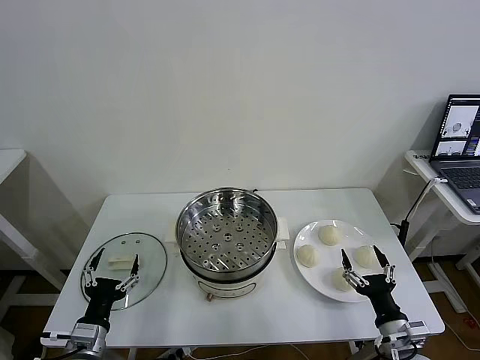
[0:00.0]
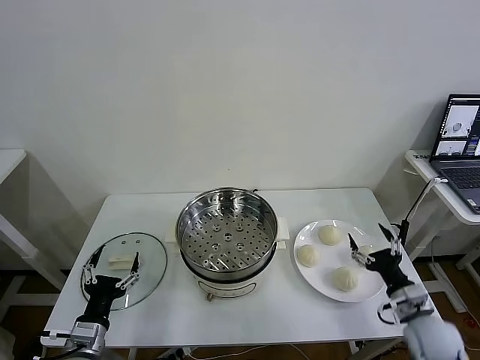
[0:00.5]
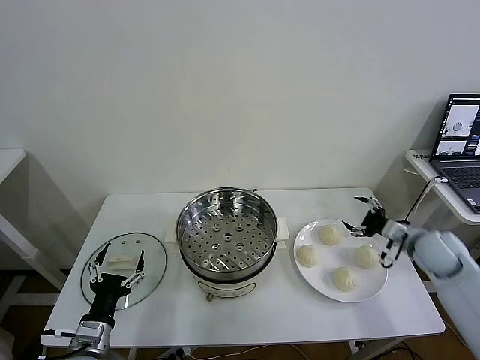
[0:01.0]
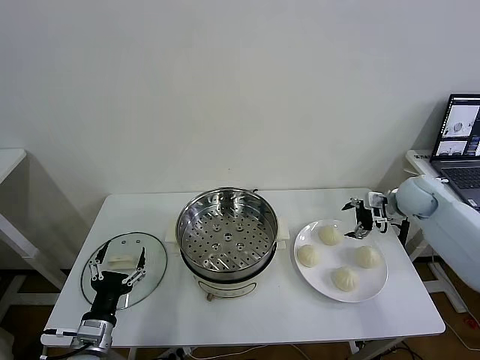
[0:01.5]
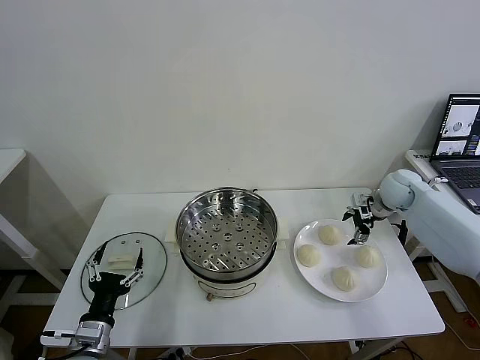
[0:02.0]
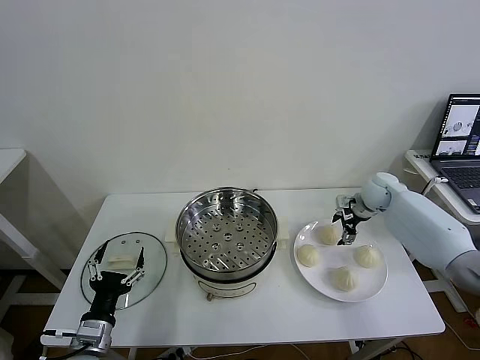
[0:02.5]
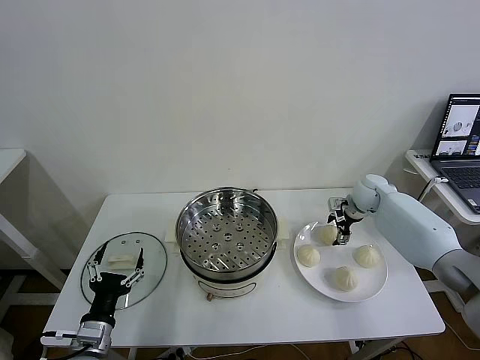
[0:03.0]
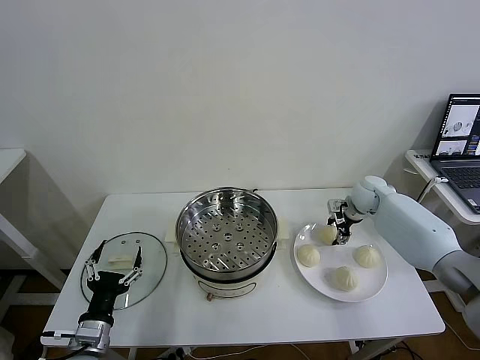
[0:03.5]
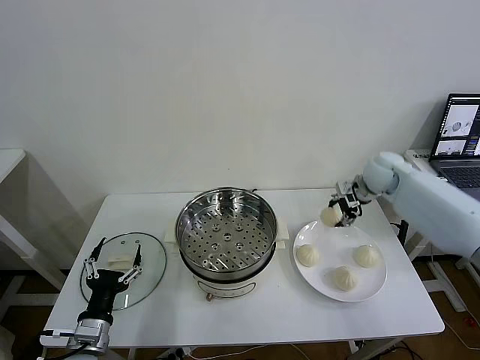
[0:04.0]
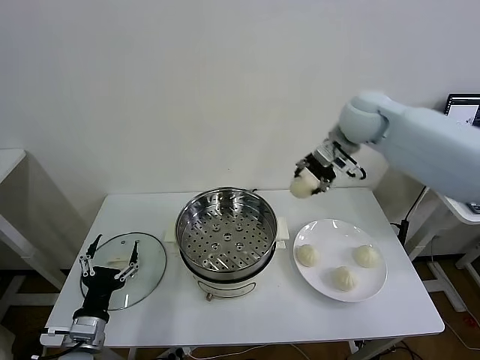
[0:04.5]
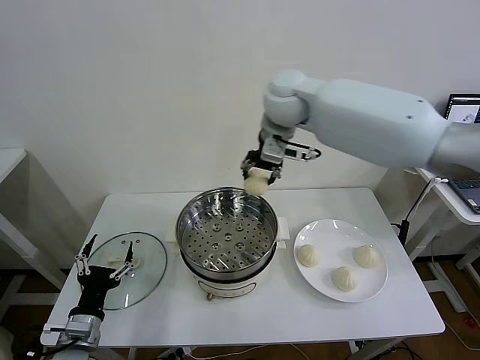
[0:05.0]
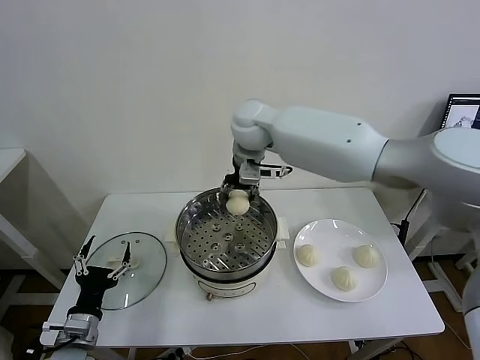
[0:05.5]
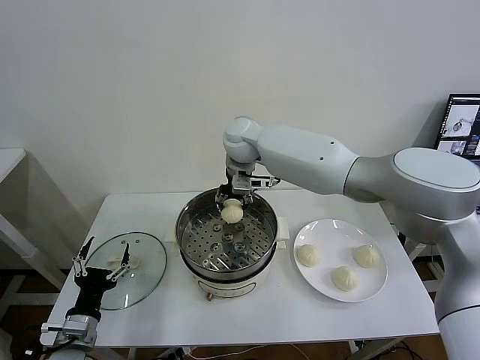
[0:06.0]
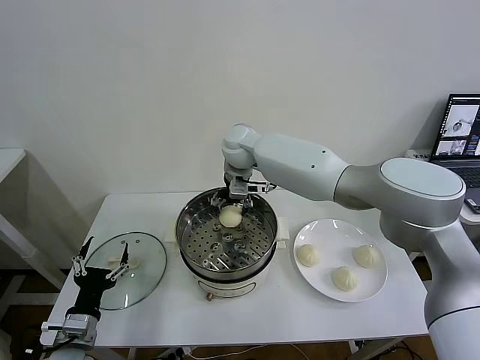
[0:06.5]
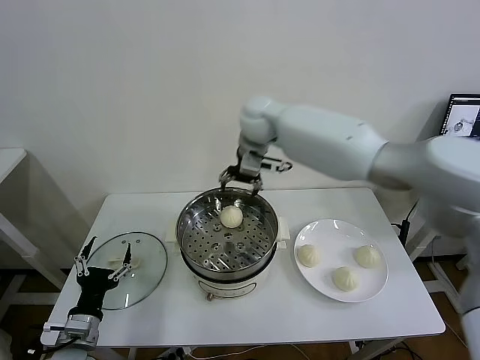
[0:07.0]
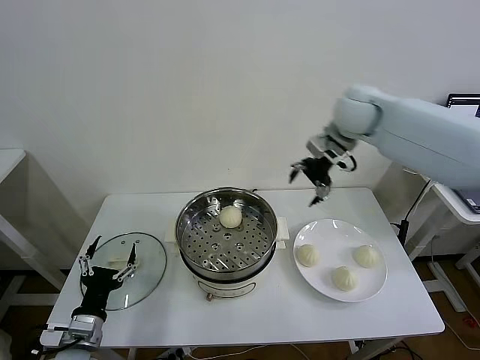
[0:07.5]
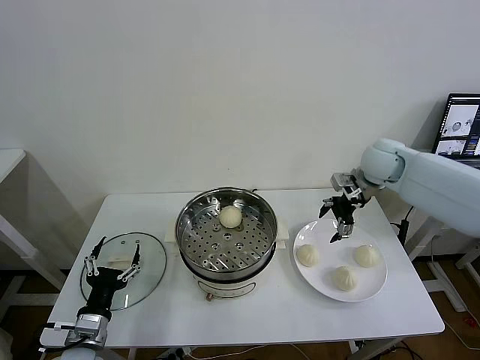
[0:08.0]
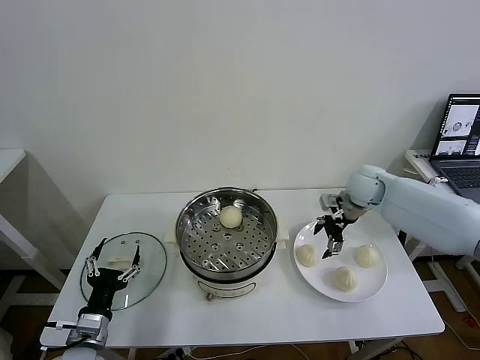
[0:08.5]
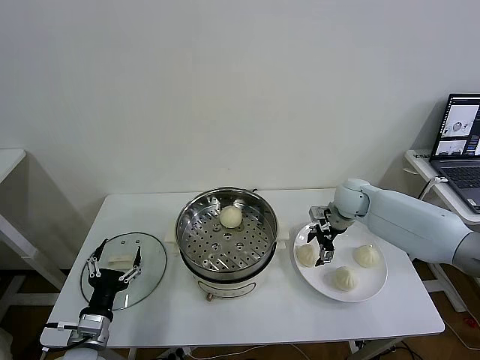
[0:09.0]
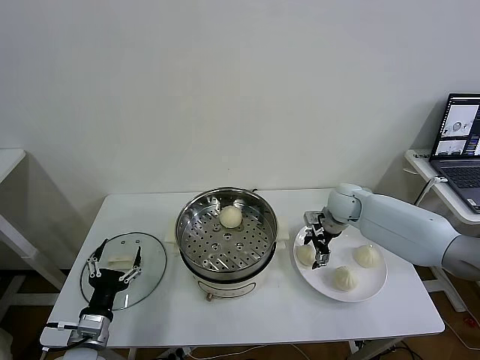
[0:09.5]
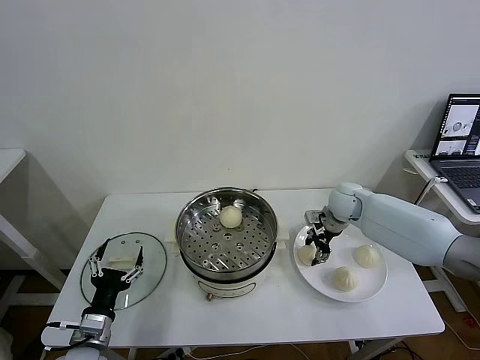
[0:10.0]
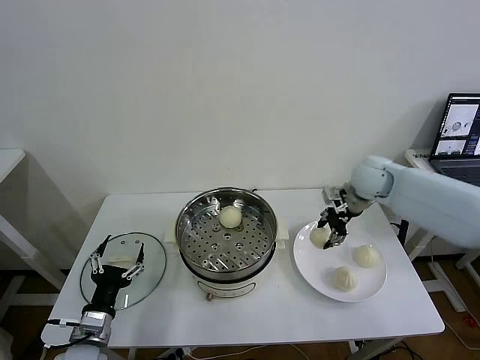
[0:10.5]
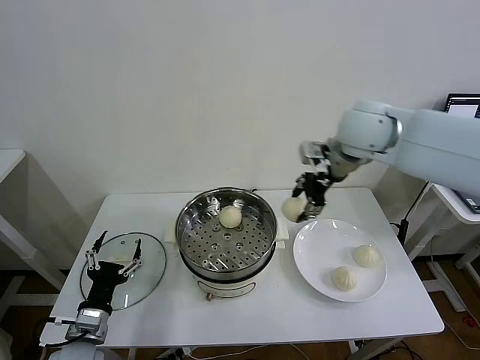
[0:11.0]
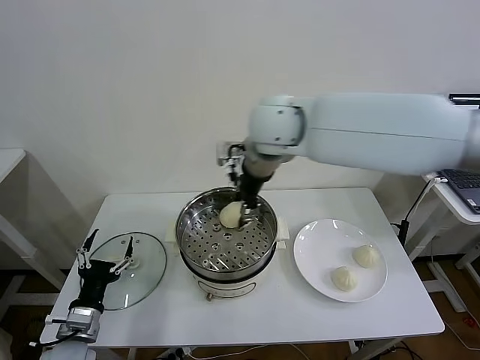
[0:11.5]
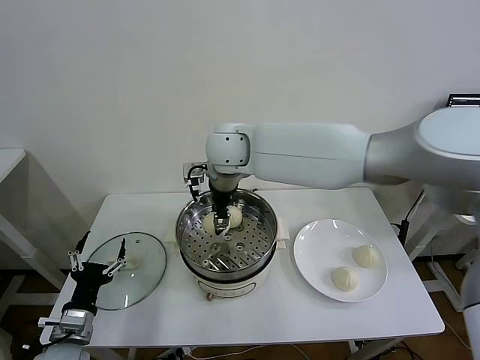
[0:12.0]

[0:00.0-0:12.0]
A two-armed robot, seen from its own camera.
Task of the whole recording: take steamed baozi put them in steamer then cover it.
Step, 0.0 to 3.0 s: Grasp the baozi in the plate with right gripper.
Step, 3.5 to 6.5 s: Place the baozi on the steamer with right gripper.
Step, 7.0 to 9.5 s: Grasp the baozi in the plate with right gripper.
2.0 to 4.0 s: The right gripper heads upward and to the left, covering approximately 10 cm, and closes its fingers.
4.0 to 6.0 s: The right gripper moves to the left, about 35 cm.
6.0 to 8.0 s: The right gripper moves to the right, approximately 30 cm, and opens.
8.0 to 10.0 s: The right gripper shifts roughly 10 cm downward, and closes up.
10.0 to 12.0 s: The right gripper travels to the left and upward by some 35 cm.

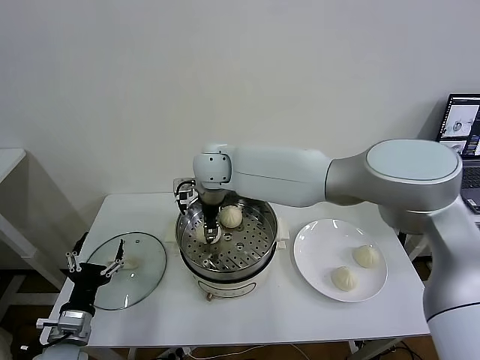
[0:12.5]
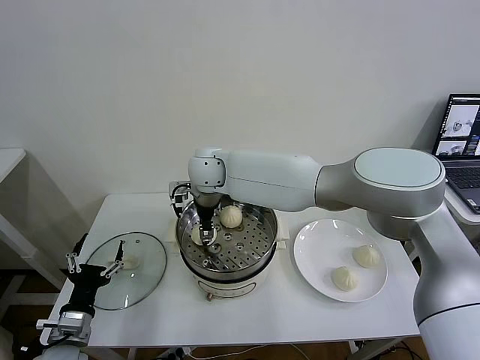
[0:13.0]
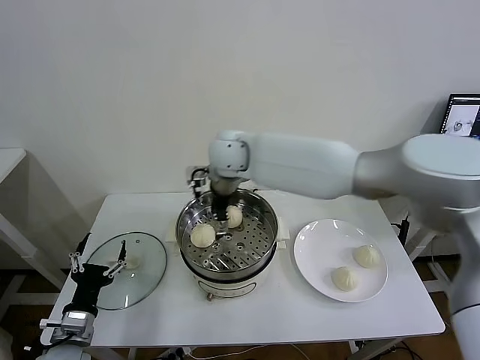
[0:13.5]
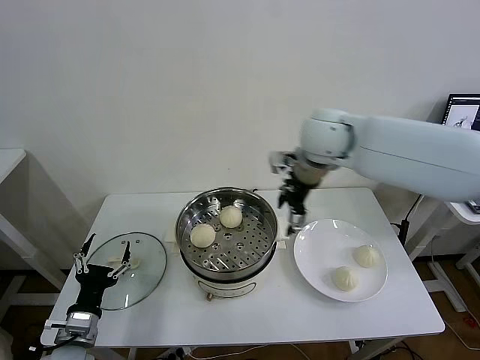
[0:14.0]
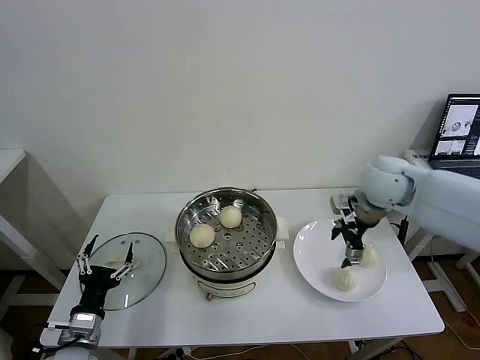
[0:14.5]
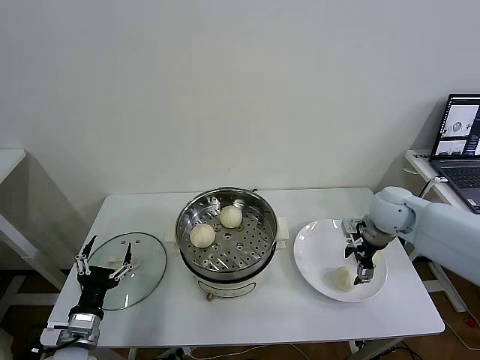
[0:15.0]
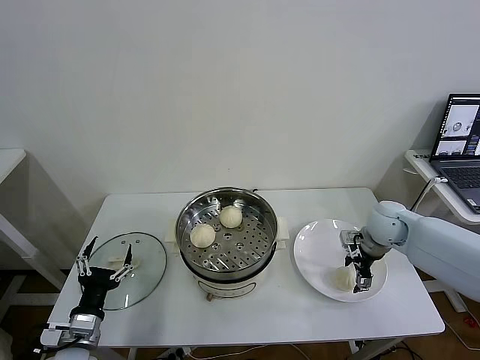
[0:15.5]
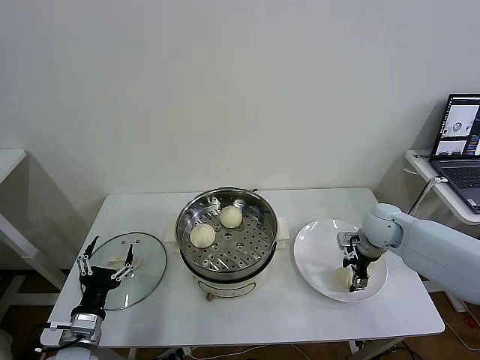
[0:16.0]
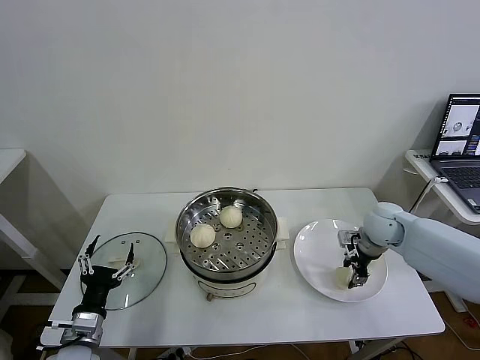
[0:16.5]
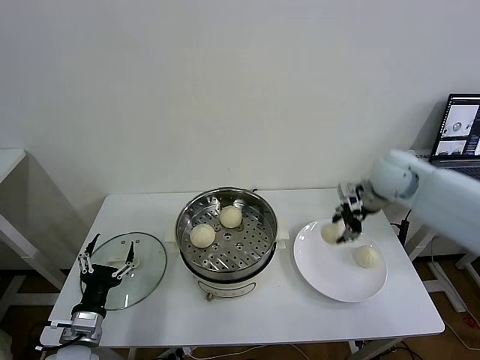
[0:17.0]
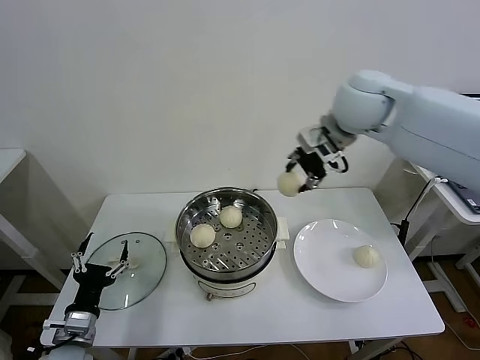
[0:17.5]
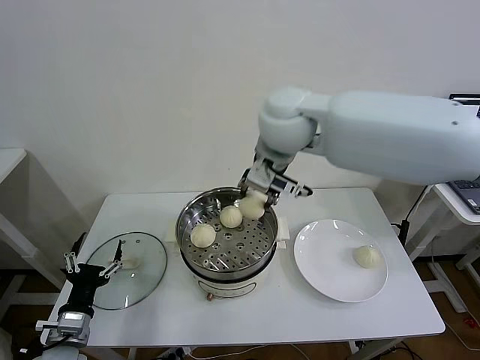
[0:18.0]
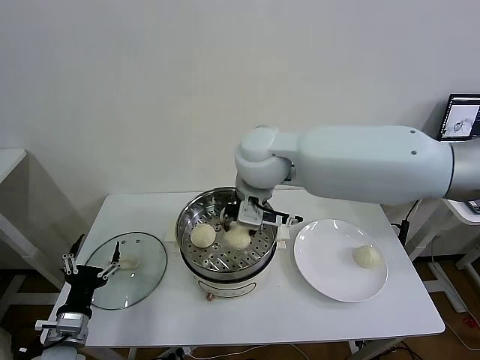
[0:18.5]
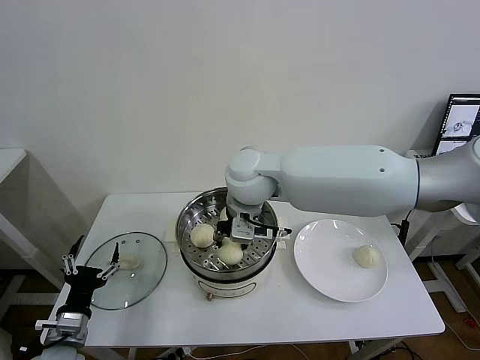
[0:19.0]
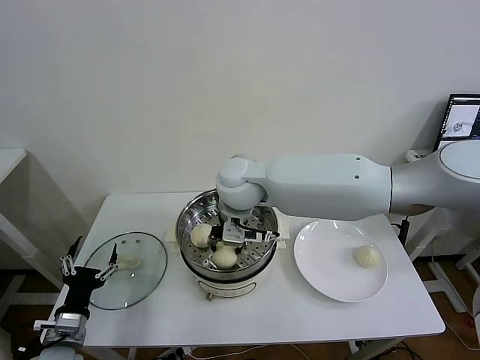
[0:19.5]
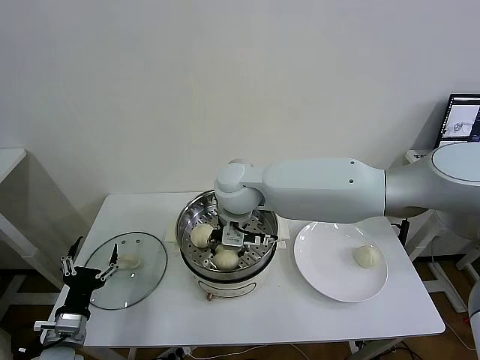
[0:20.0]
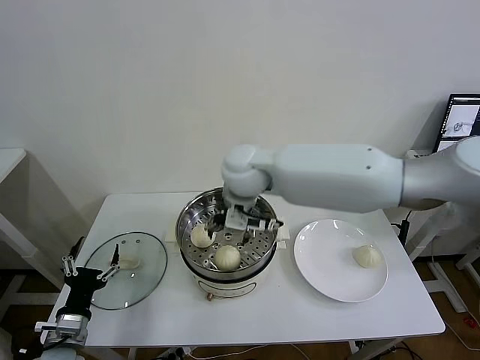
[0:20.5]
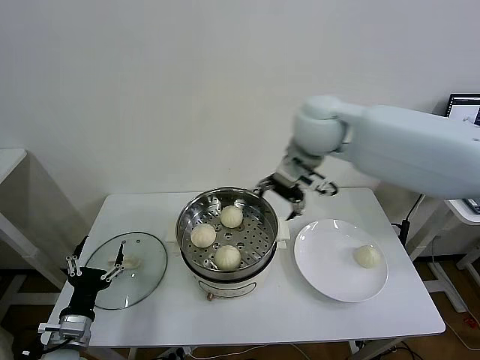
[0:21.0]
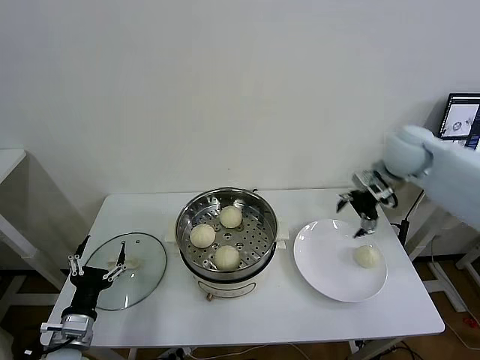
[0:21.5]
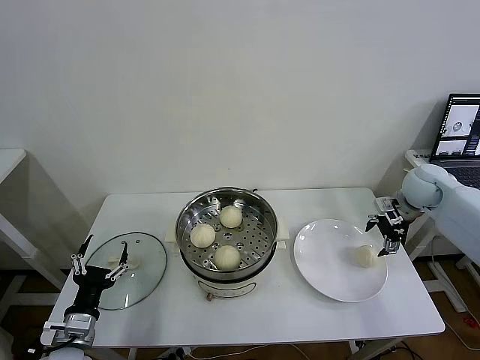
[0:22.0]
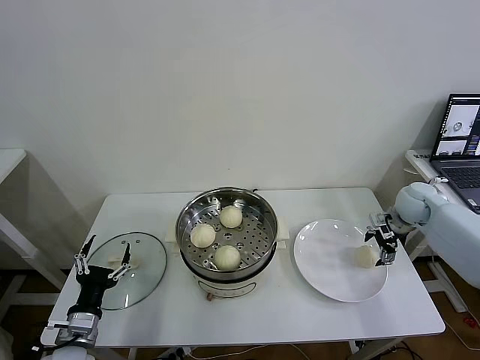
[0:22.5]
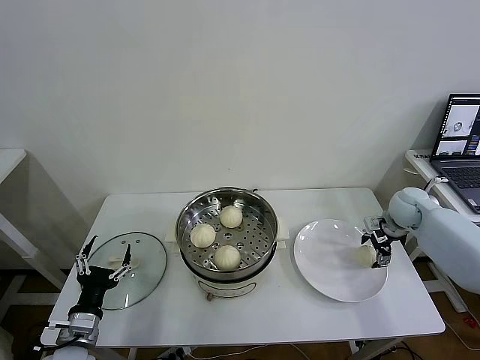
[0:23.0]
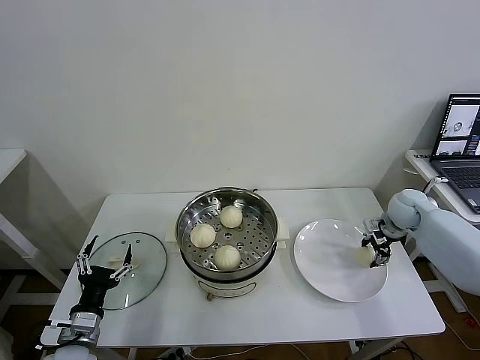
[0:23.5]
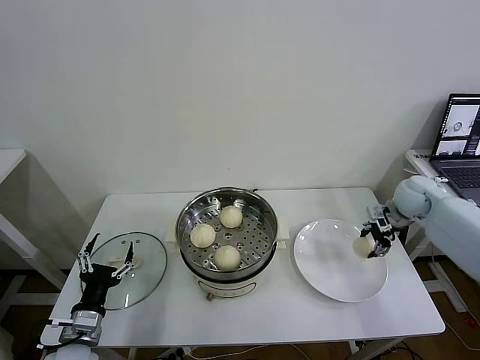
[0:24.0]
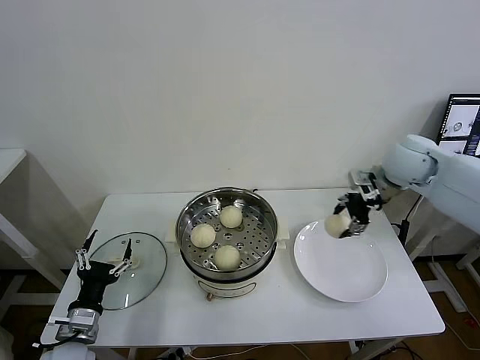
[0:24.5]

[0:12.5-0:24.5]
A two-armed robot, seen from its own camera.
Task of the whole recording: take steamed baozi put them in steamer then cover it.
Step, 13.5 to 16.0 s: Grasp the baozi in the plate with right gripper.
Step, 16.5 to 20.0 s: Place the baozi on the steamer with right gripper.
Step, 20.5 to 23.5 s: Grasp the baozi in the plate with right gripper.
12.5 to 14.5 s: The right gripper moves to the right, about 35 cm, and opens up.
14.5 to 16.5 s: The right gripper heads downward, covering approximately 10 cm, and closes its fingers.
16.5 to 18.5 s: The right gripper shifts approximately 40 cm to the left and upward.
18.5 to 20.5 s: The right gripper reaches approximately 10 cm downward, then returns, and opens its fingers.
20.5 to 22.5 s: The right gripper shifts about 50 cm to the right and downward.
22.5 to 24.5 s: The right gripper heads upward and to the left, covering about 20 cm, and closes up.

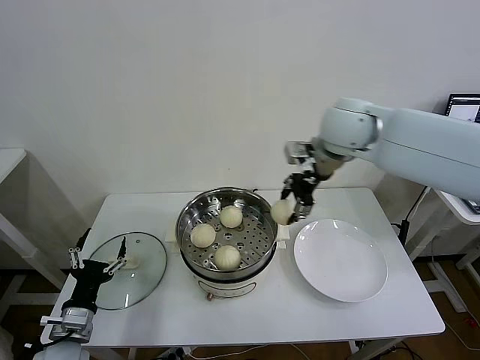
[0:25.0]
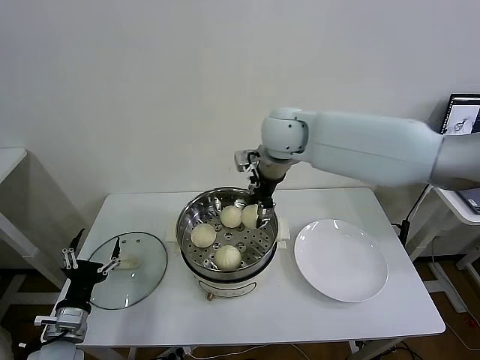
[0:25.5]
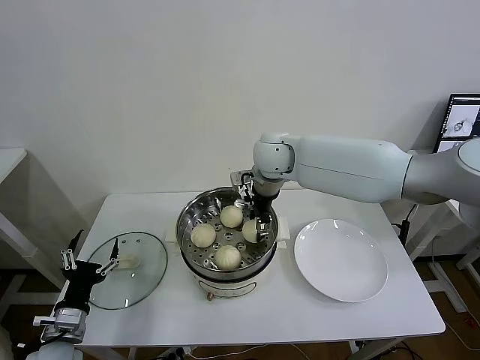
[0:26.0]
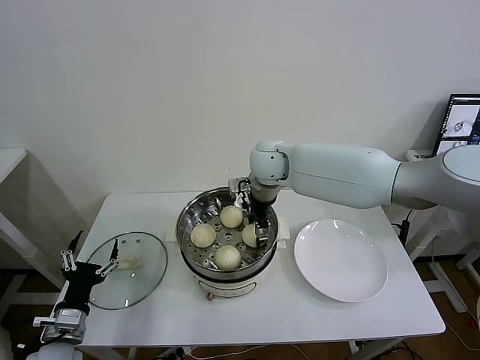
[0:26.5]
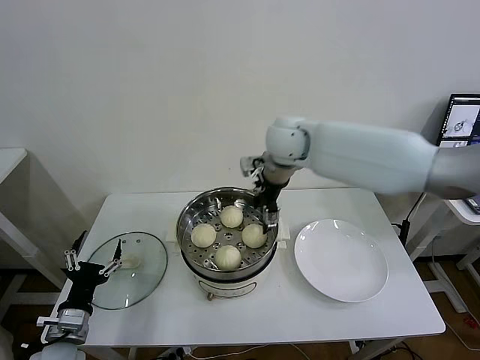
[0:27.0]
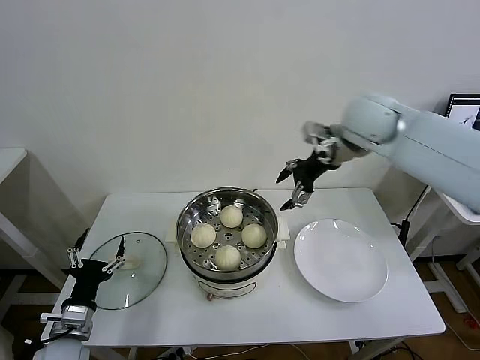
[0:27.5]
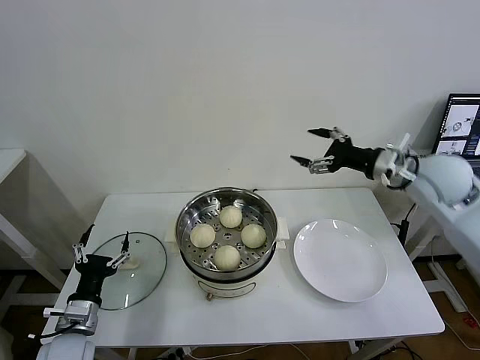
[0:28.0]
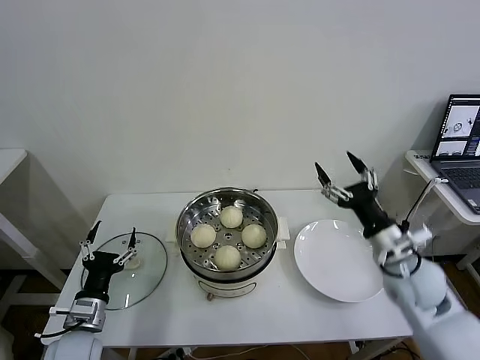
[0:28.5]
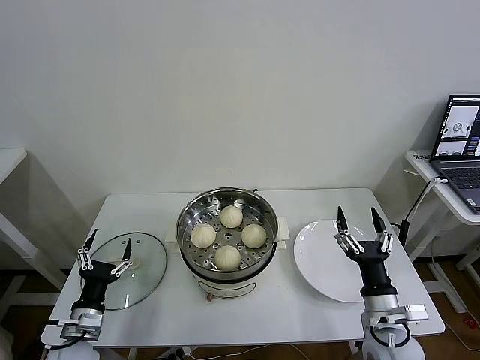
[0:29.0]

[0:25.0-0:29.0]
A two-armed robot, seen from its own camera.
Task of the whole recording: take steamed baozi put them in steamer then cover it.
25.0 to 27.0 s: The right gripper moves to the left, some 5 cm, and opens up.
27.0 to 29.0 s: The right gripper heads backward, downward and to the right, covering roughly 50 cm.
